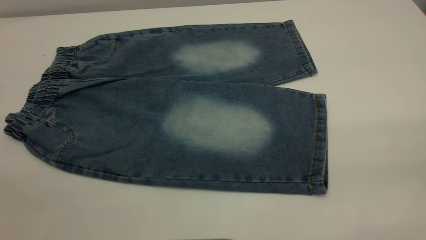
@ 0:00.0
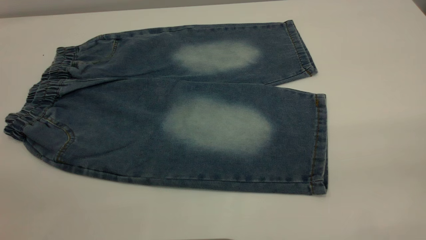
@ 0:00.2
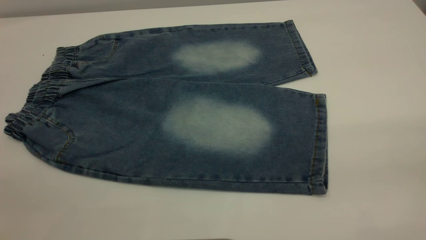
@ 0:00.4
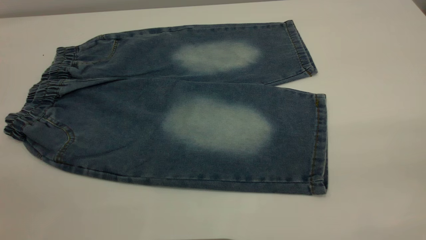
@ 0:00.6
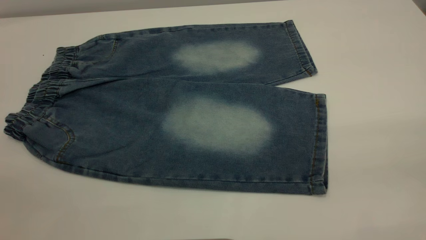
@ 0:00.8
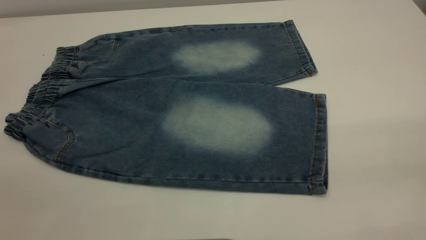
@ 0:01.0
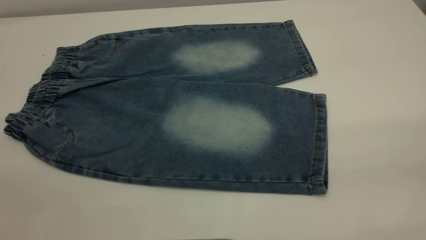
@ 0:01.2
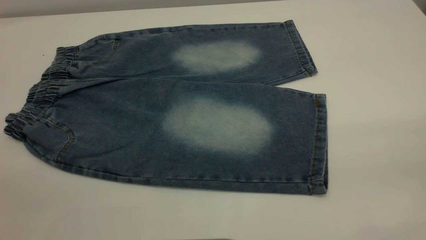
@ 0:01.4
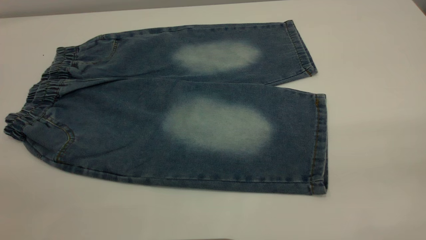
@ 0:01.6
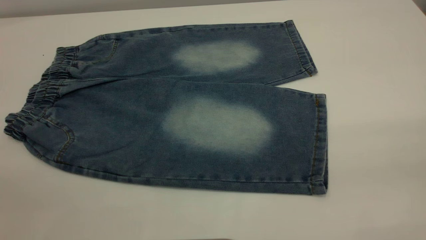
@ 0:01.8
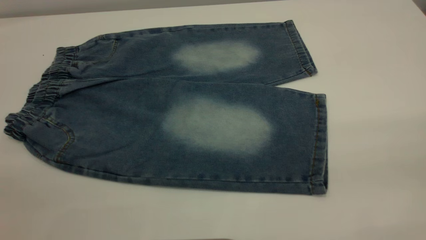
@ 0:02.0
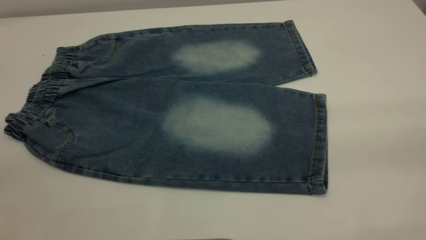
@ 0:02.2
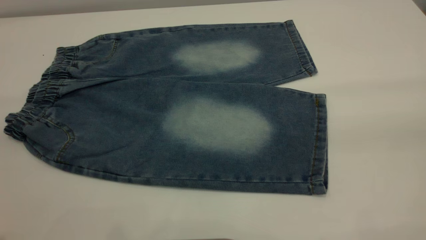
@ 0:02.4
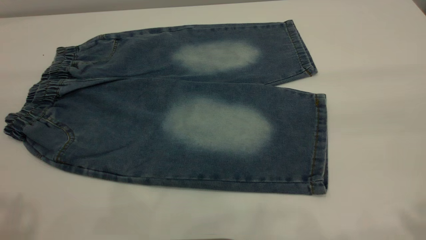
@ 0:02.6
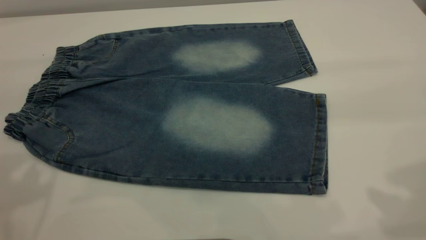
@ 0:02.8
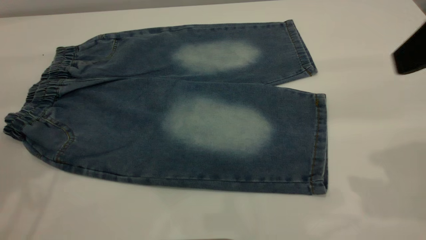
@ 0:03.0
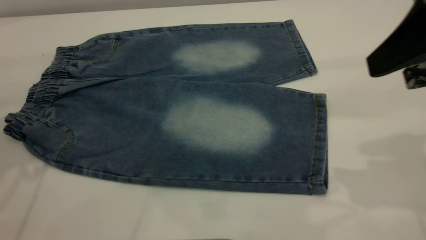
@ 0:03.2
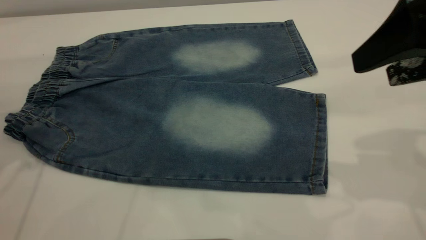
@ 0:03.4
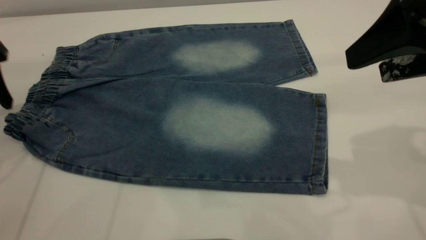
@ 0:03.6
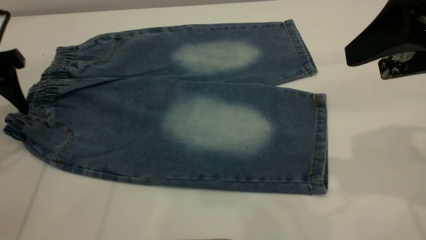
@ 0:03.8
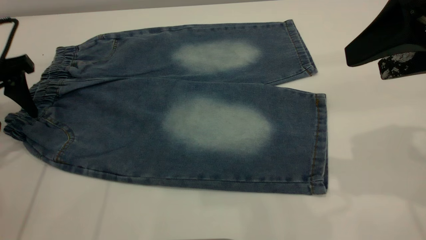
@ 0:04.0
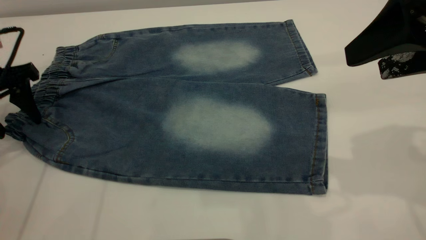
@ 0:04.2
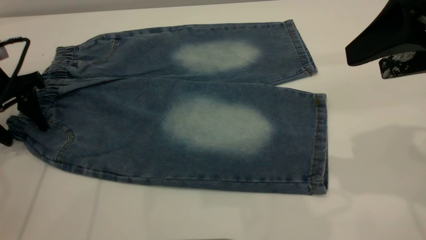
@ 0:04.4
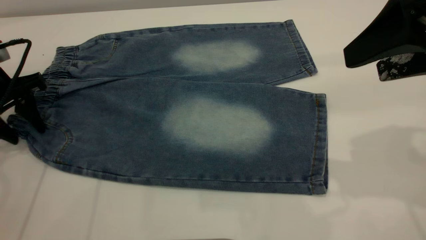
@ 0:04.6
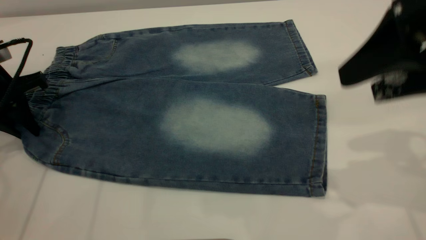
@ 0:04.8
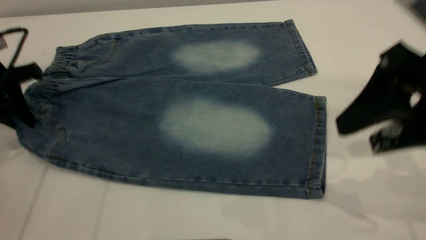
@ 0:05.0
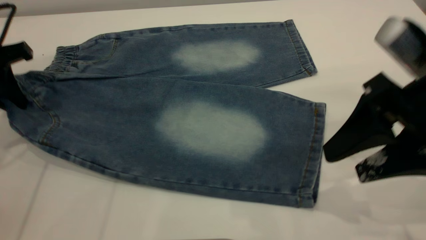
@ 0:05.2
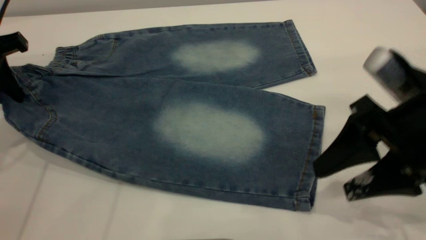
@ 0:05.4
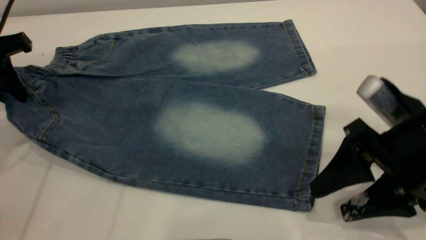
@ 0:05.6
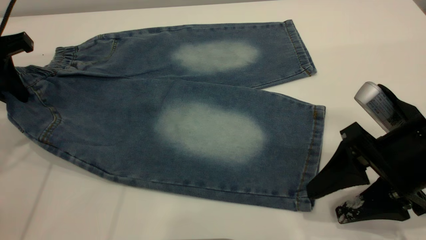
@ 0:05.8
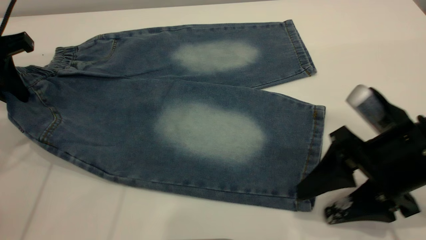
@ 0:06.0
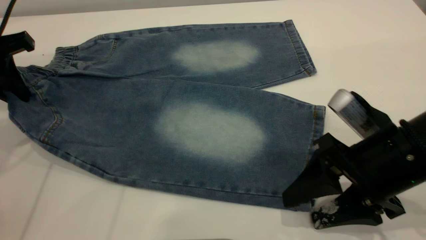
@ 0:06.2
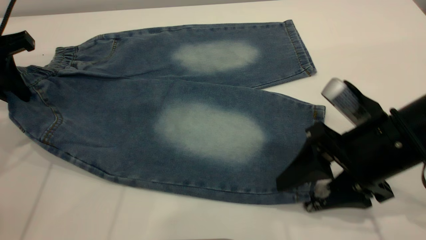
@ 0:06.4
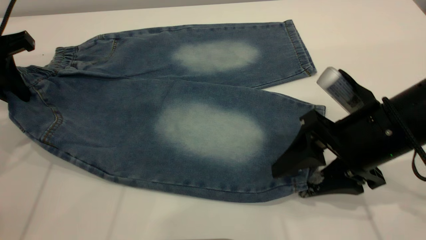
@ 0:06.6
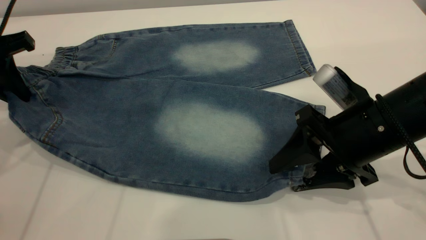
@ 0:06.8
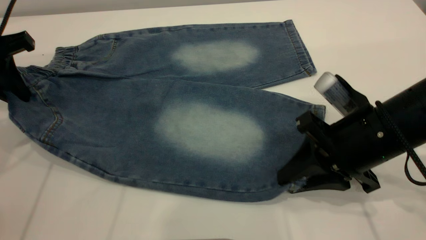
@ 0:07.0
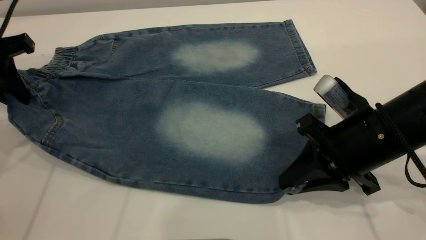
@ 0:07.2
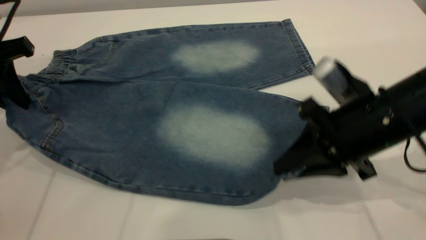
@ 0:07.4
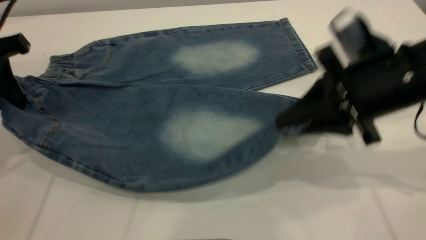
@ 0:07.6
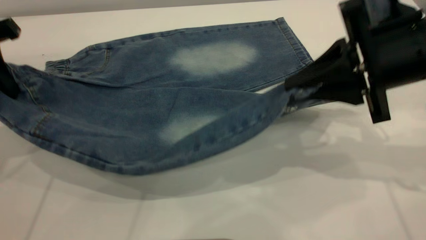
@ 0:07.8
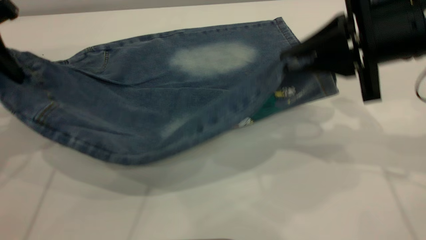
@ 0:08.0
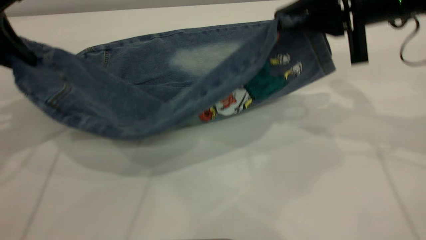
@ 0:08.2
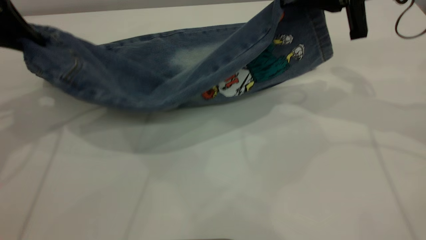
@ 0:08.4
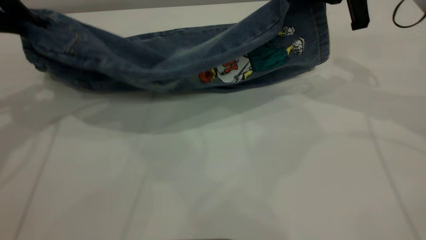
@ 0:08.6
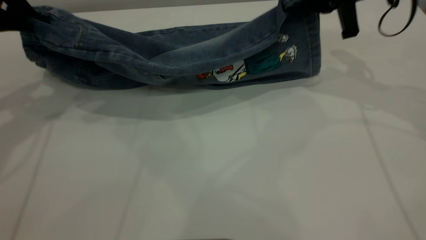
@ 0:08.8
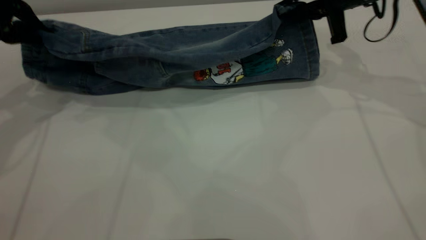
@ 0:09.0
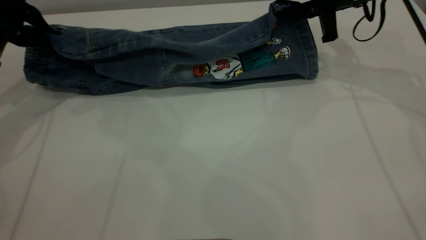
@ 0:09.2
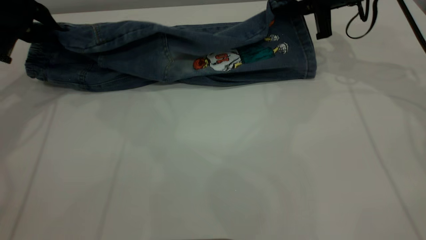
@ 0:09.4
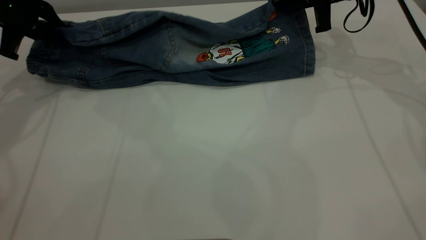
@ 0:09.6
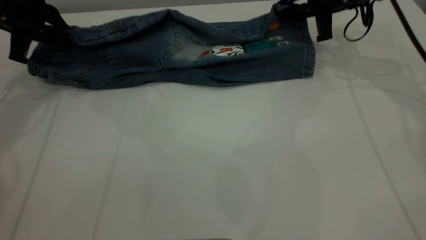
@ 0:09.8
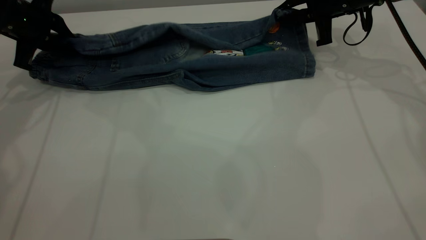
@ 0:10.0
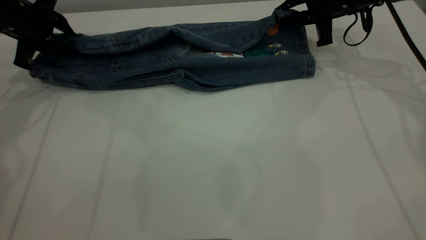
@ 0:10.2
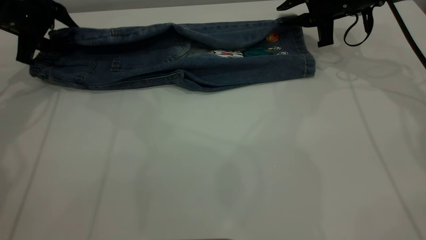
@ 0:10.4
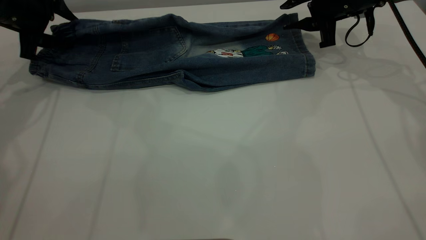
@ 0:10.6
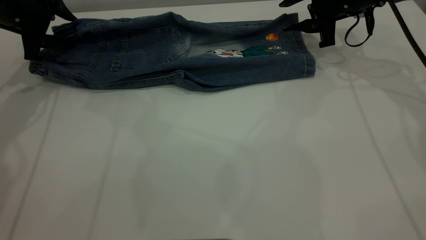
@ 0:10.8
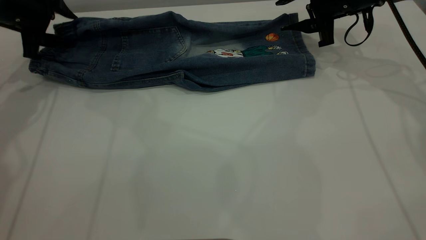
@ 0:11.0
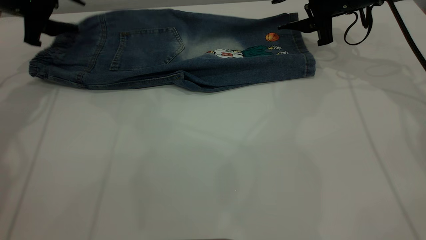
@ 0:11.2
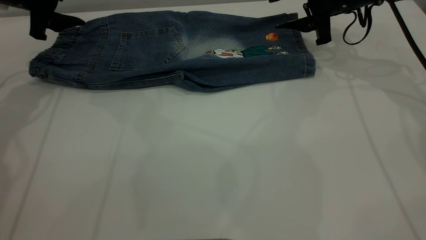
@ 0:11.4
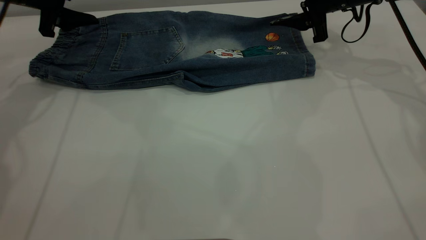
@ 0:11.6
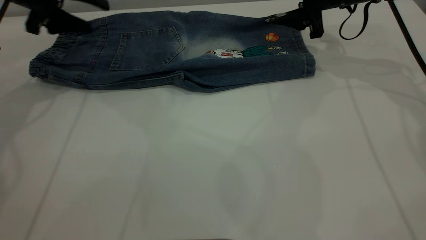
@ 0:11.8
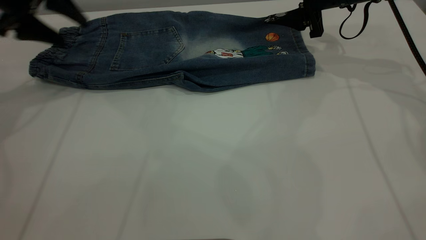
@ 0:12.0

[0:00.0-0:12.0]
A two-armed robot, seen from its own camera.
Step, 0:00.0 to 0:11.6: Fold the bottom of the pants upward.
0:00.0 to 0:01.6: Both grippers stay put.
0:01.6 to 0:03.0: The right gripper shifts about 20 cm forward.
0:03.0 to 0:04.4: The left gripper moves downward and forward, about 20 cm.
0:04.4 to 0:06.0: The right gripper is displaced downward by roughly 15 cm, while the left gripper goes approximately 5 cm upward, and closes.
0:06.0 to 0:07.6: The right gripper moves upward and forward, some 10 cm, and closes its fingers.
0:07.6 to 0:09.0: The right gripper shifts about 20 cm forward.
0:09.0 to 0:10.4: The right gripper changes place by approximately 5 cm, and opens up; the left gripper goes roughly 10 cm forward, and opens.
0:10.4 to 0:12.0: The left gripper travels upward by about 5 cm. Meanwhile the right gripper opens.

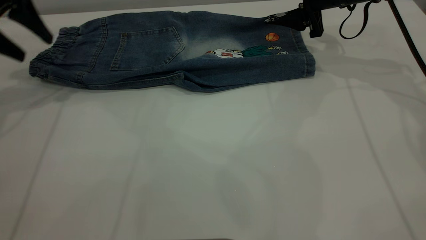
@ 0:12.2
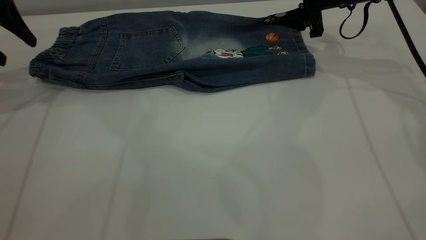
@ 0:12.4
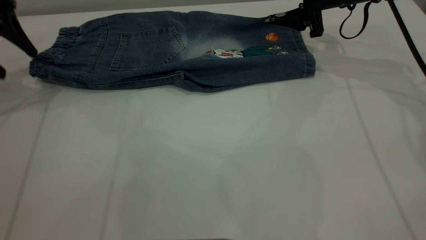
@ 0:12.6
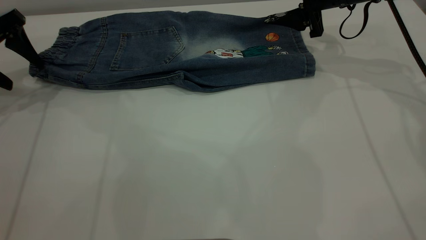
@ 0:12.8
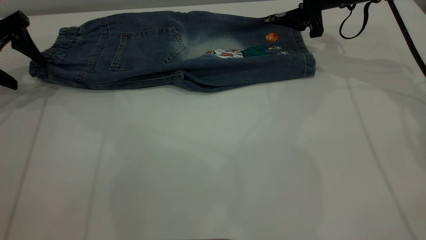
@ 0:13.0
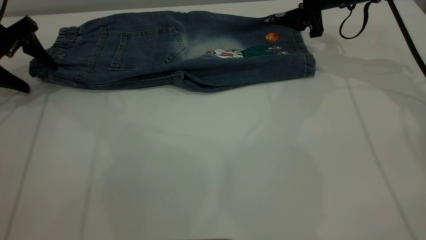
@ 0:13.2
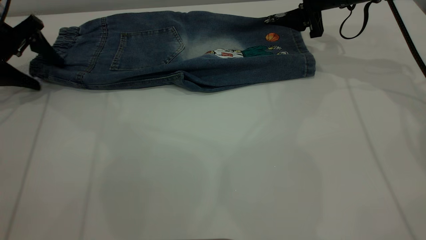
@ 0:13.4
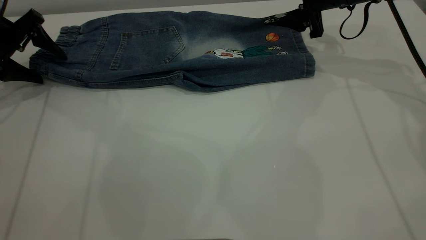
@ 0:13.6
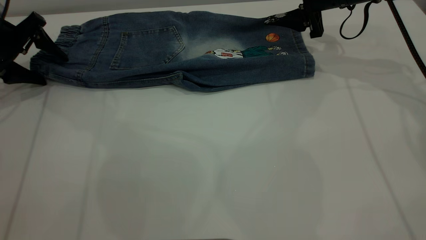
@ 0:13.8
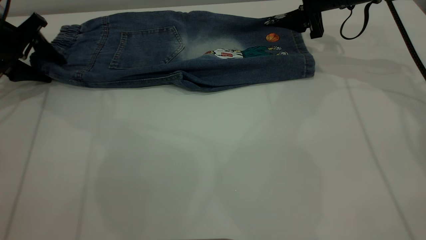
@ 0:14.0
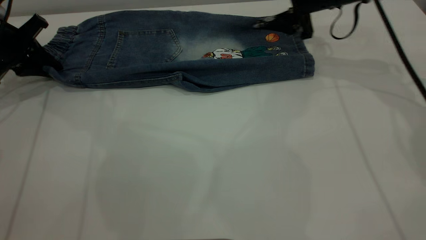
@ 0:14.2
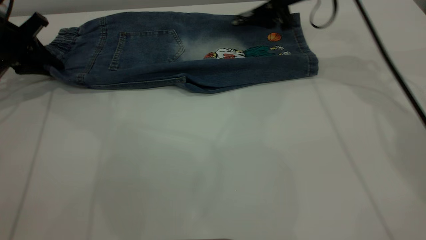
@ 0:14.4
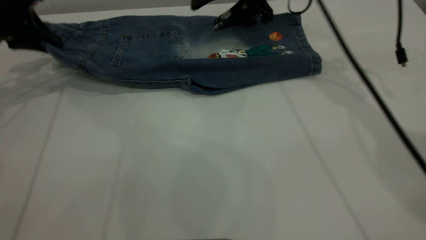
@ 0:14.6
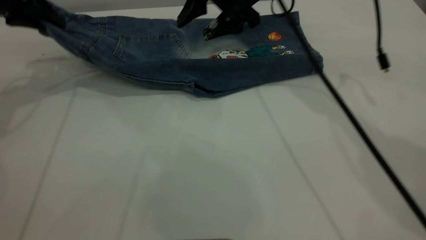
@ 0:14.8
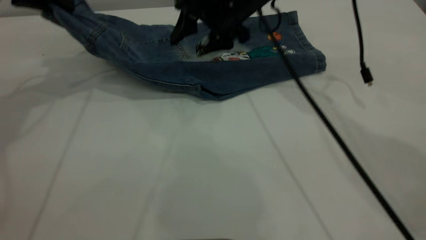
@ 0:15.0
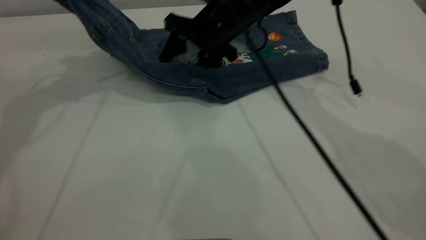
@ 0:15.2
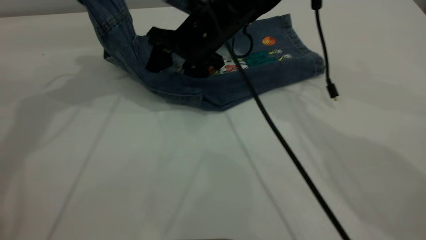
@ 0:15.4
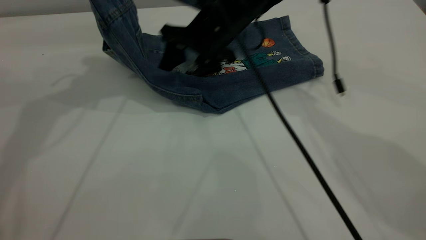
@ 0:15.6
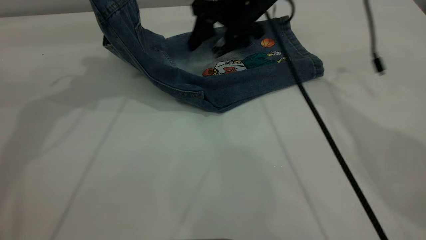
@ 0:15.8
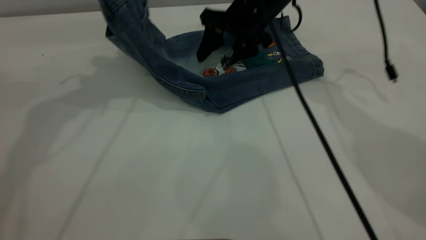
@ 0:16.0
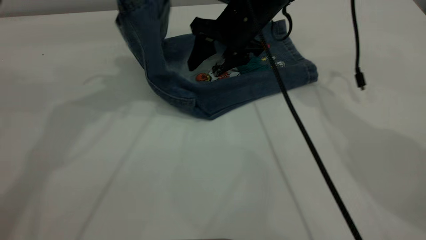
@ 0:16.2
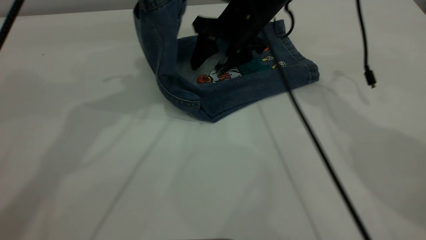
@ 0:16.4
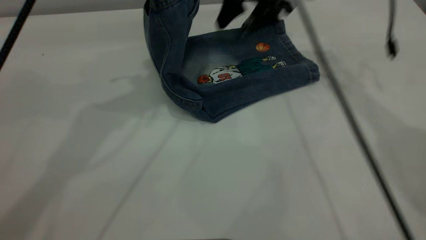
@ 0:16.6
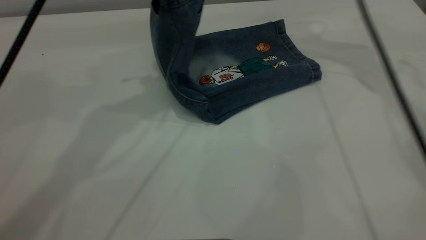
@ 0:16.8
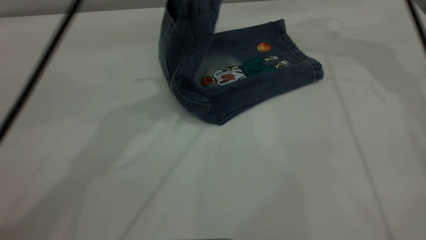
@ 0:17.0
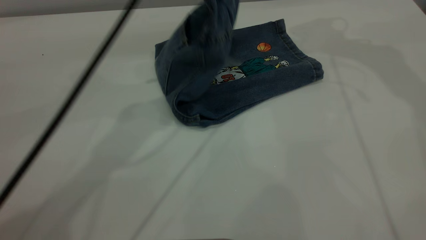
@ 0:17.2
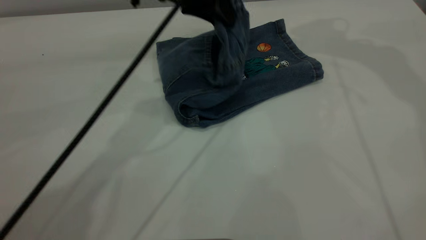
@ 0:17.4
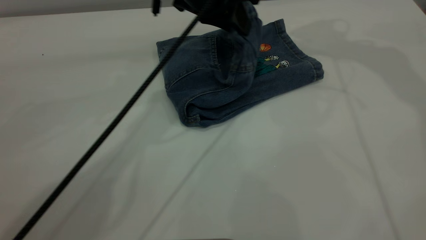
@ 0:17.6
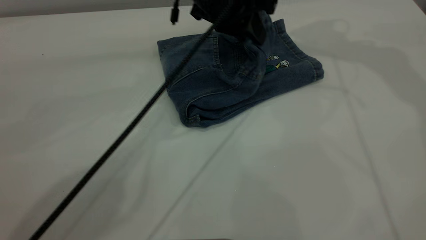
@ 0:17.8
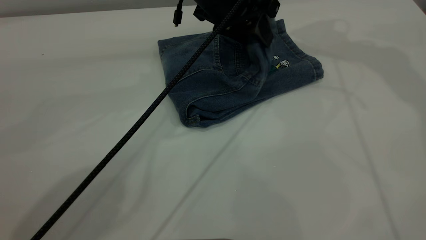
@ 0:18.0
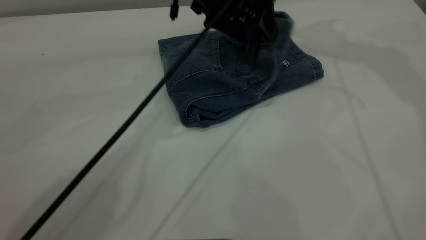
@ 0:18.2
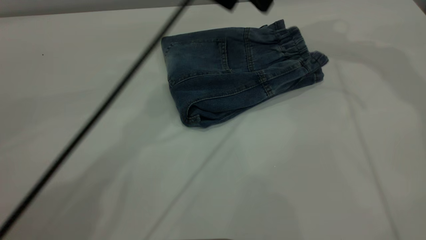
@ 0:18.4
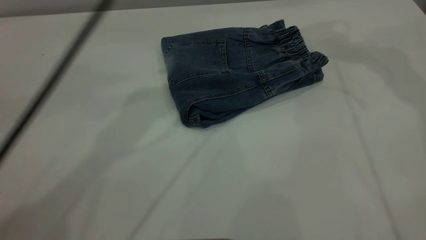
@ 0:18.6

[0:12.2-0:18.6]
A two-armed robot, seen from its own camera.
Step, 0:12.2 to 0:18.4: Fold the pants from left to right.
0:12.2 to 0:13.8: The left gripper shifts some 10 cm downward.
0:13.8 to 0:15.4: The left gripper goes roughly 20 cm upward and to the right, and closes its fingers. The right gripper heads to the left, covering some 20 cm.
0:15.4 to 0:17.0: The right gripper heads to the right and upward, covering about 25 cm, while the left gripper shifts some 15 cm to the right.
0:17.0 to 0:18.6: The right gripper travels upward by some 5 cm. Meanwhile the left gripper goes downward and returns, approximately 10 cm each way, and opens.
